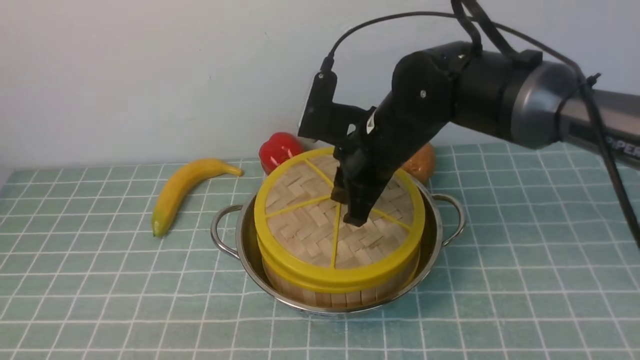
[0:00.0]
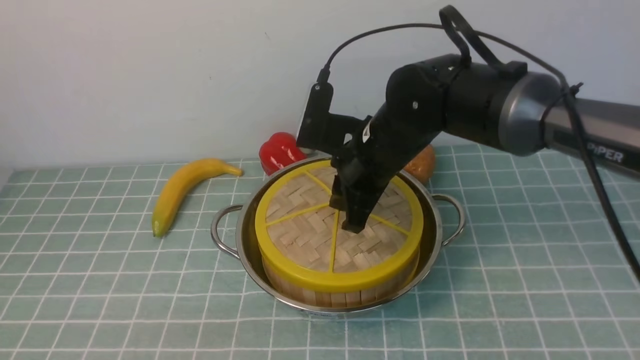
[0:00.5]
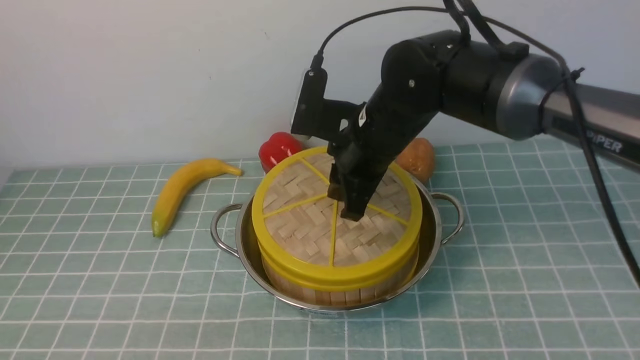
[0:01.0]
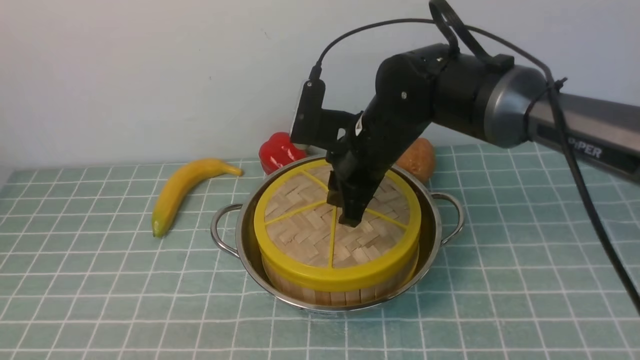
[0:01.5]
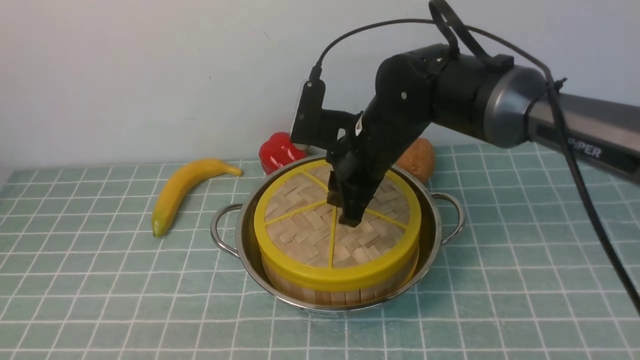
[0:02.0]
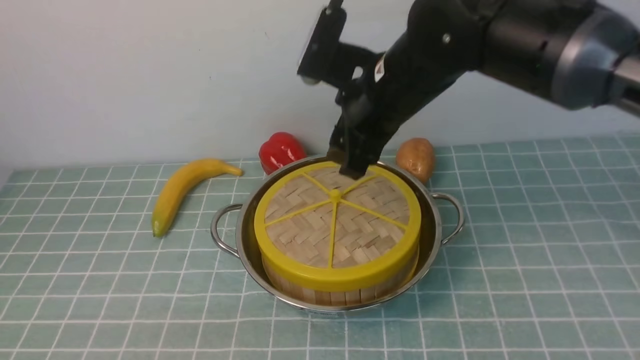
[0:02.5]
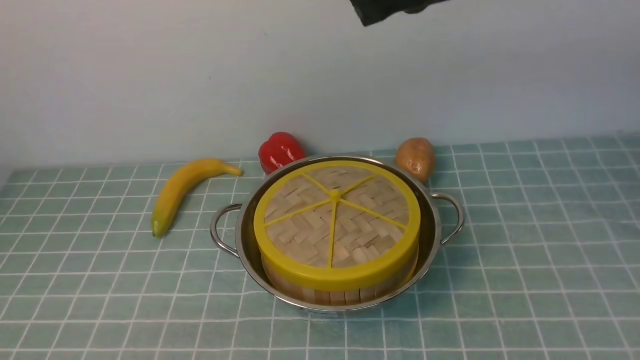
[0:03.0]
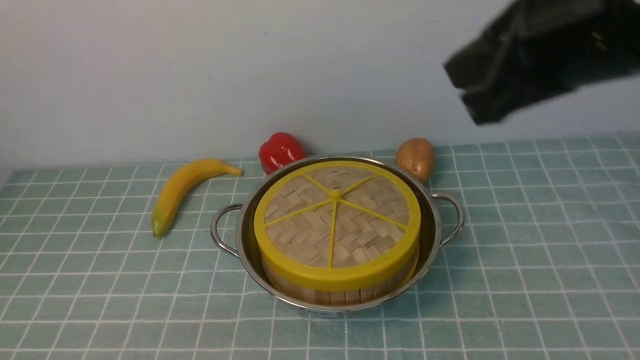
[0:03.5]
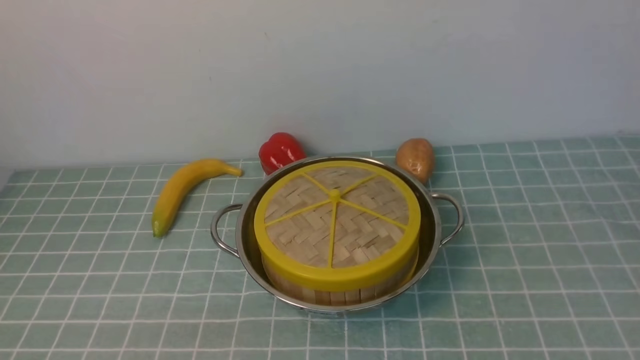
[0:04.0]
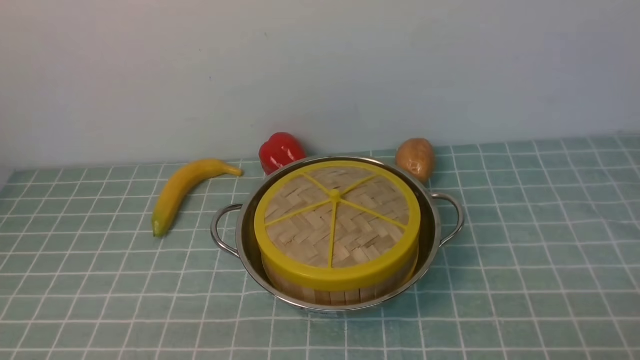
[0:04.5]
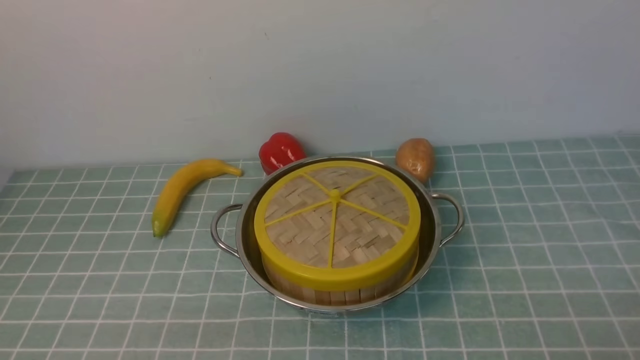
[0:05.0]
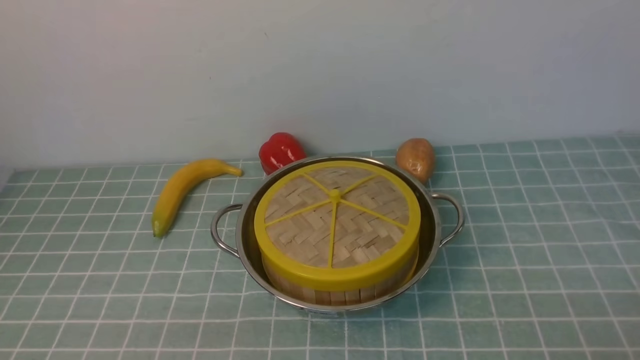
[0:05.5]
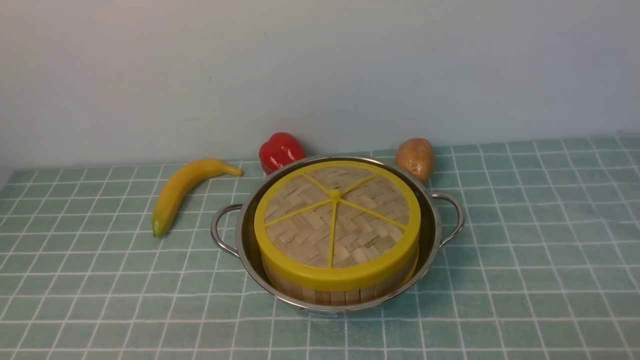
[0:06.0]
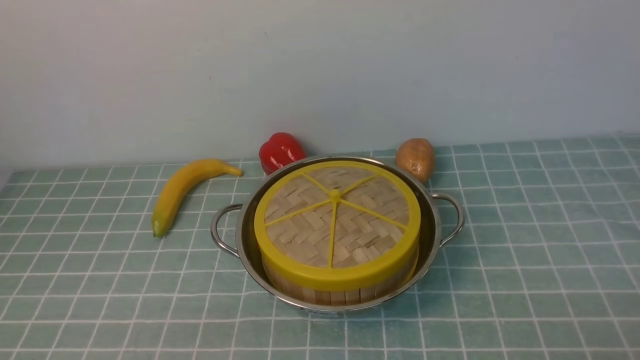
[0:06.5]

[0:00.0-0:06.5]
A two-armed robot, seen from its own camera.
Task of the whole recording: place the steamer in the pot on the blue tablecloth, and put the lid on the steamer.
Step, 0:00.0 to 0:02.5: use the right arm to place the steamer lid on the steamer.
0:00.0 to 0:02.0: The grippers stay close to where they were, moving slightly.
0:02.0 to 0:04.5: The right gripper is displaced backward and to the right by roughly 40 cm, and closes, then opens again.
